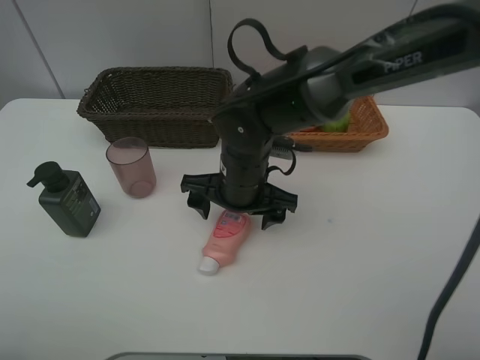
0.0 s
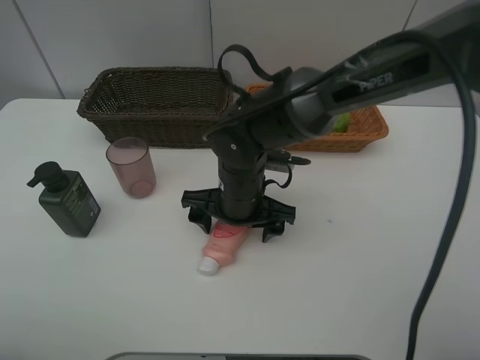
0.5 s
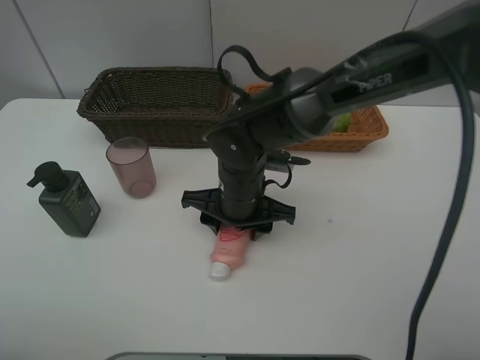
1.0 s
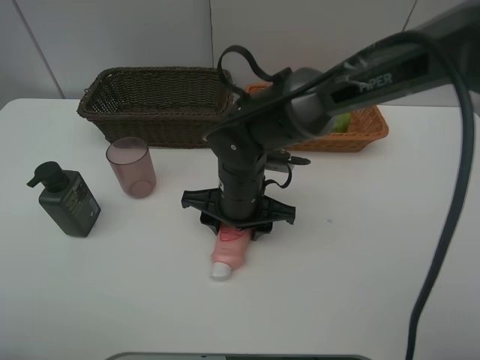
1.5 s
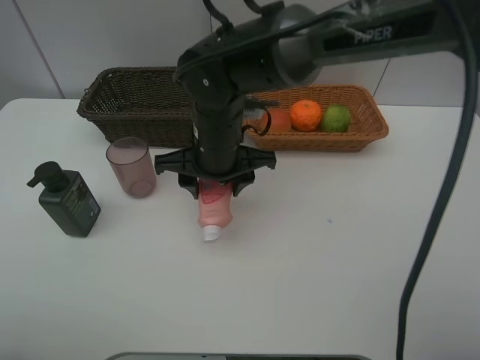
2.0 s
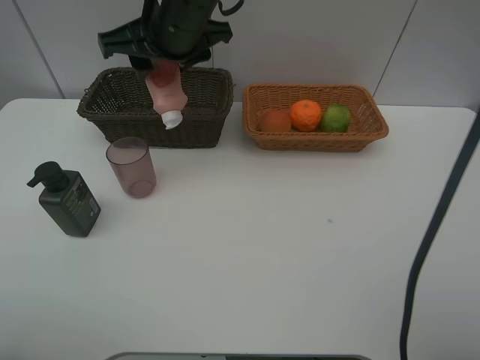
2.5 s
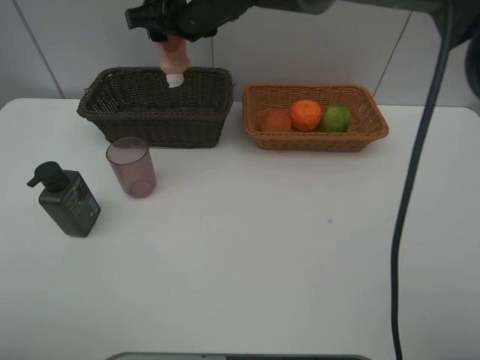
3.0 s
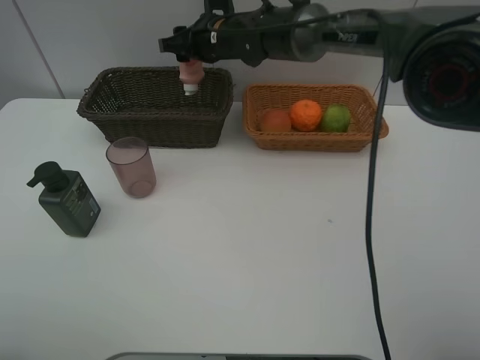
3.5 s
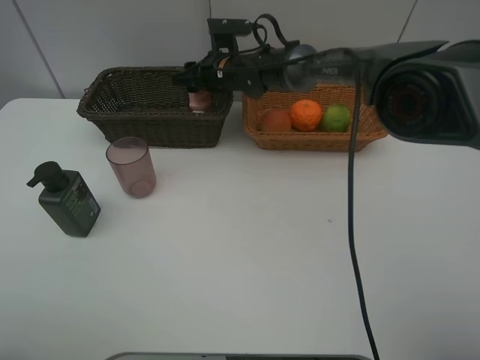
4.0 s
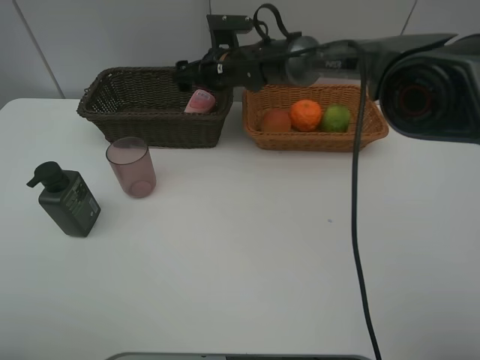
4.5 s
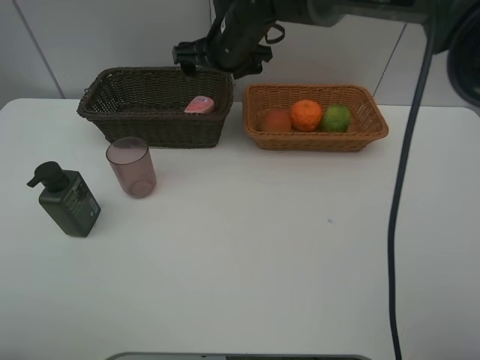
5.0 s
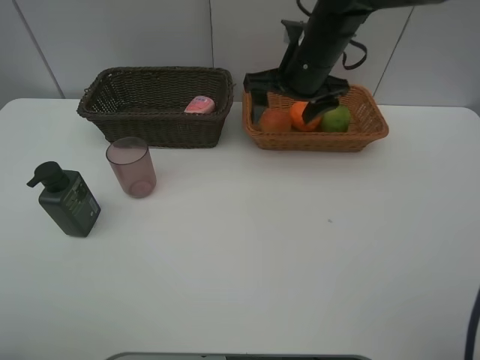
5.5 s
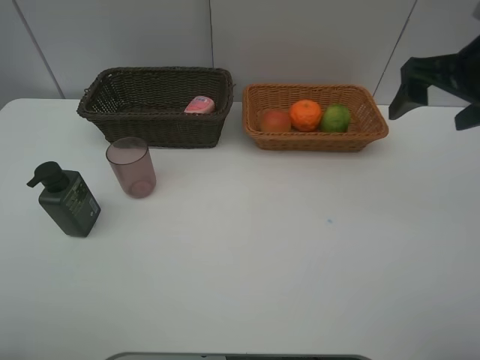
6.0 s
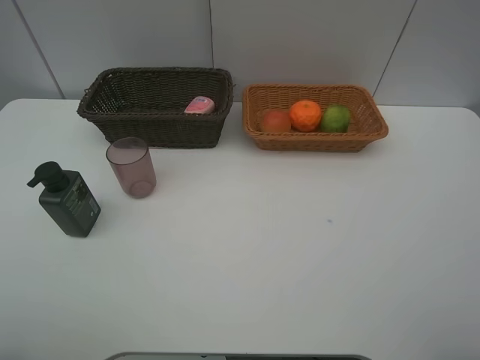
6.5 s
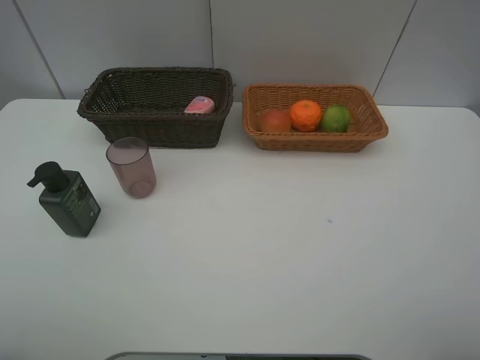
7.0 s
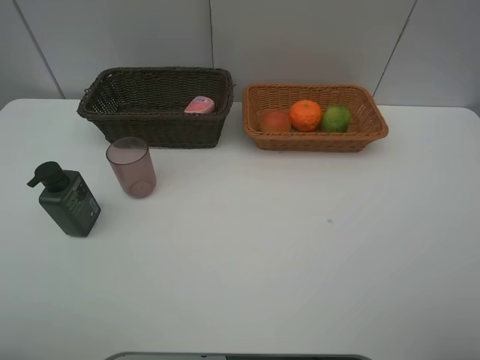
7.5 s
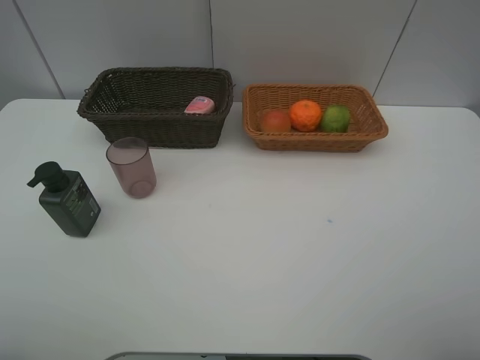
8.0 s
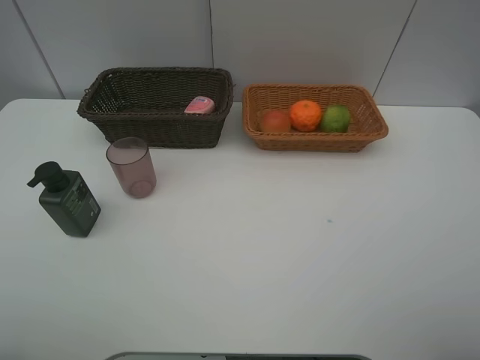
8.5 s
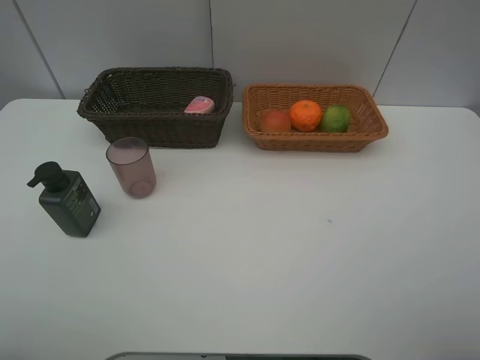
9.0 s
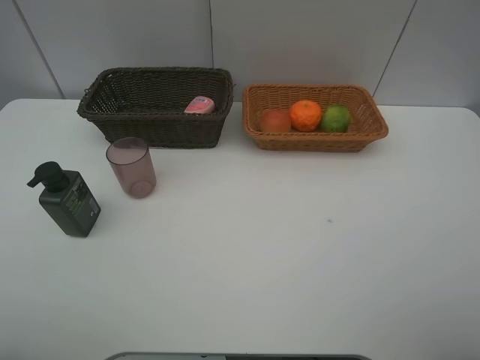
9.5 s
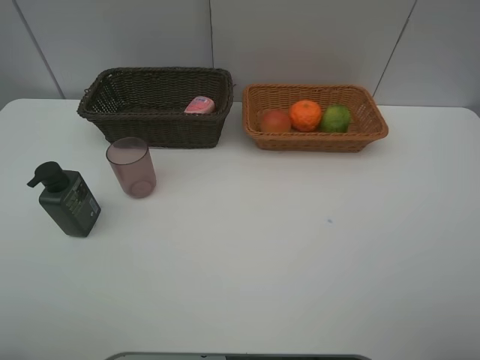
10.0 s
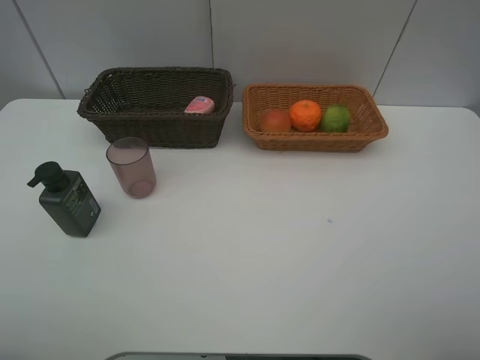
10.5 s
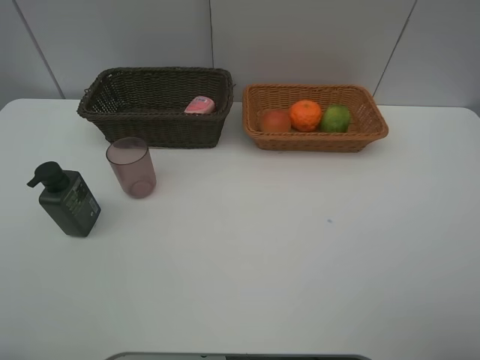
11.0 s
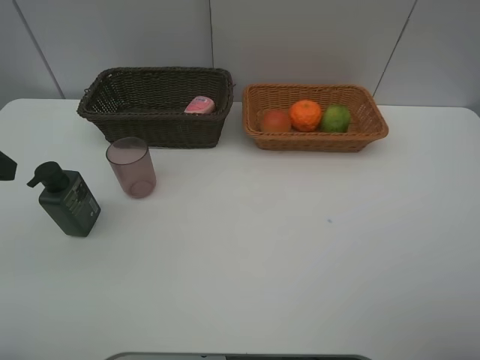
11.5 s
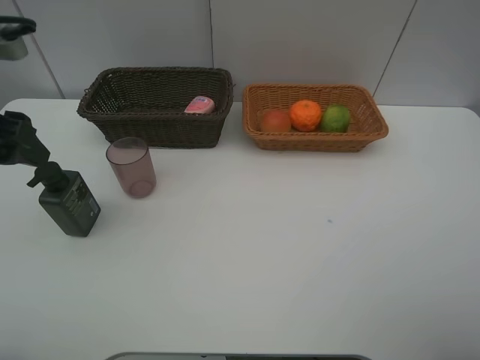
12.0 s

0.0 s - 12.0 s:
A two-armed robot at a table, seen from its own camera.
Task of the whole recording: place multiple objects separately in different baskets.
0.0 s - 2.0 s: The right gripper moves upward, roughly 5 cm, and closes up.
2.0 s - 4.0 s: The right gripper shifts some 20 cm forward.
4.0 s - 6.0 s: The right gripper moves to the right, backward and upward, roughly 40 cm, and opens up.
6.0 s - 8.0 s: The right gripper travels backward by roughly 25 cm.
8.0 s - 10.0 s: The two grippers keep their place.
10.0 s - 12.0 s: The left gripper shifts roughly 20 cm forward.

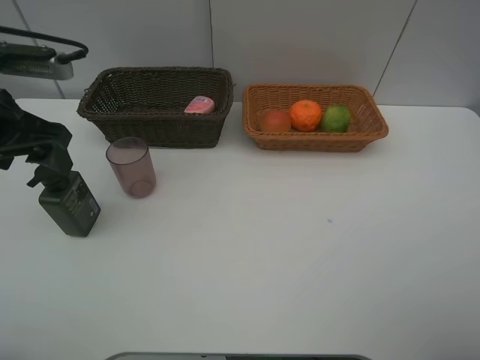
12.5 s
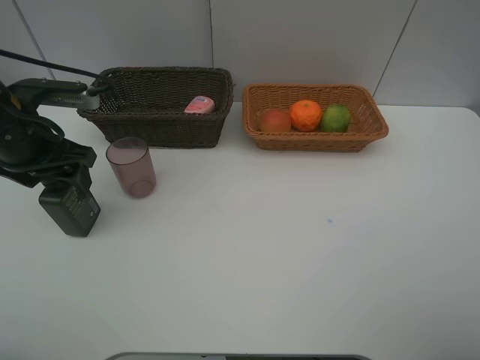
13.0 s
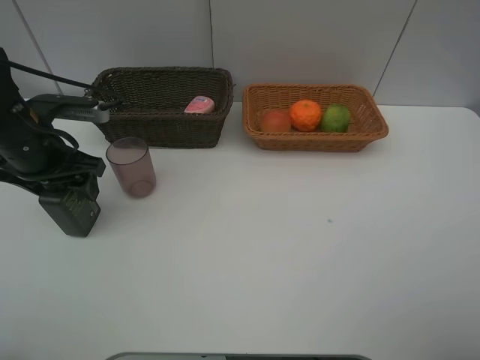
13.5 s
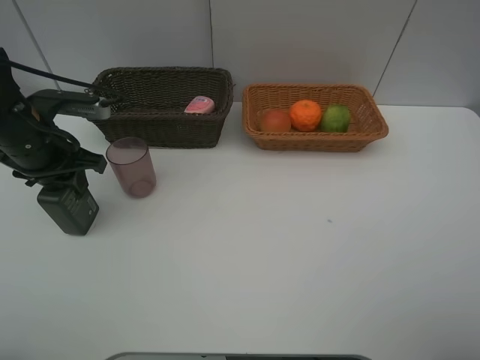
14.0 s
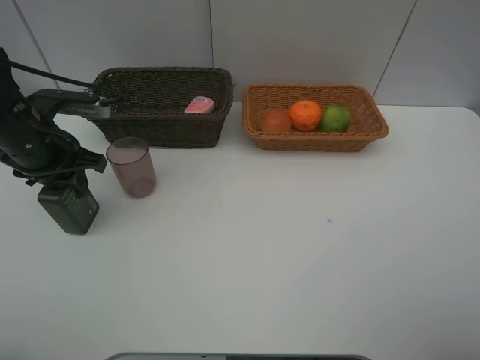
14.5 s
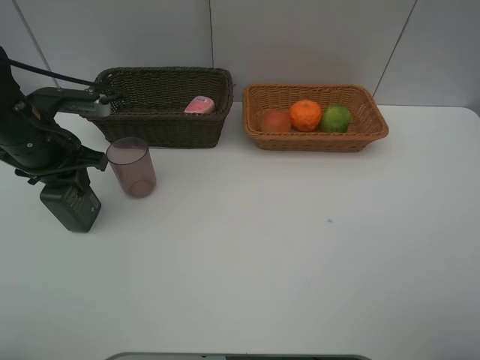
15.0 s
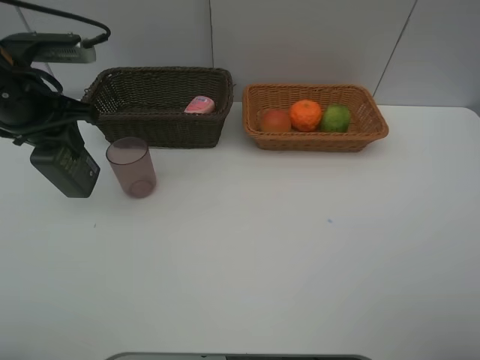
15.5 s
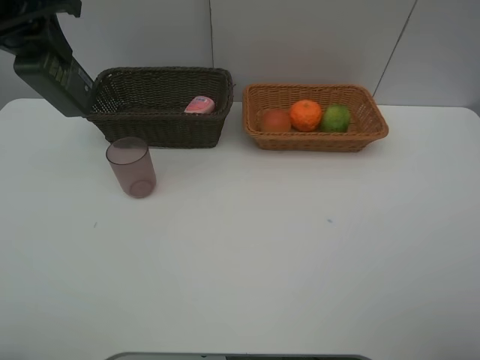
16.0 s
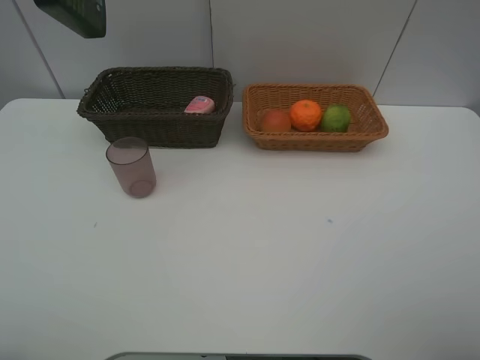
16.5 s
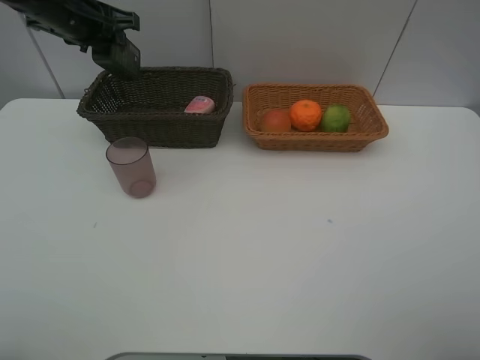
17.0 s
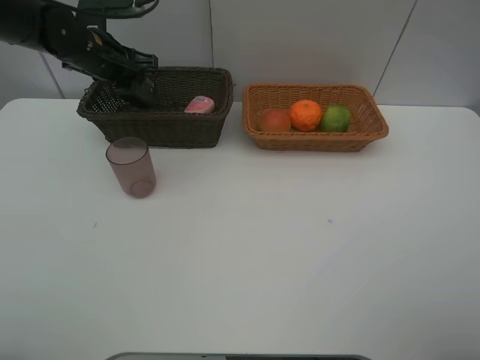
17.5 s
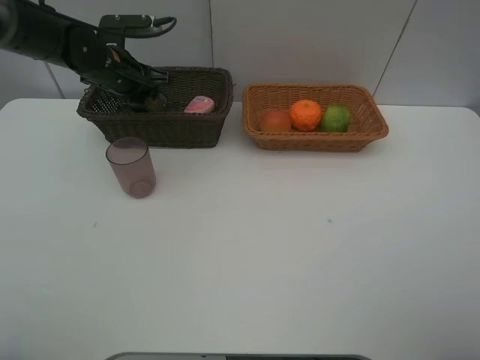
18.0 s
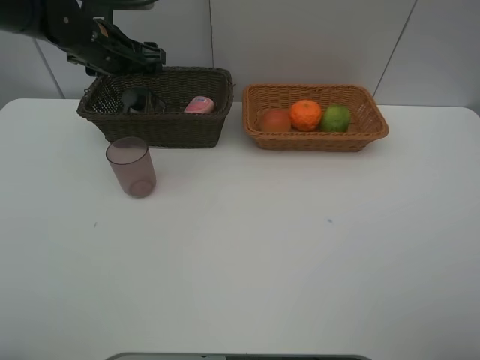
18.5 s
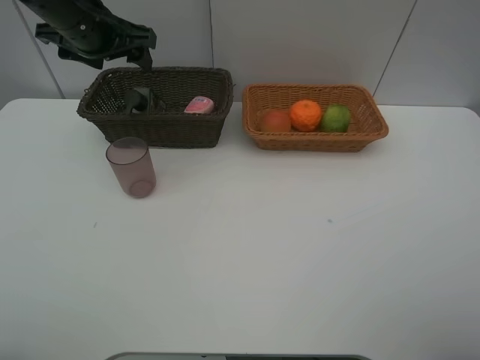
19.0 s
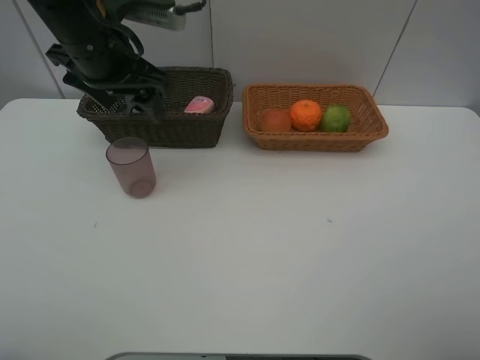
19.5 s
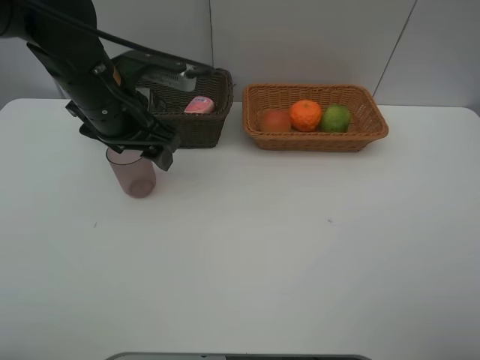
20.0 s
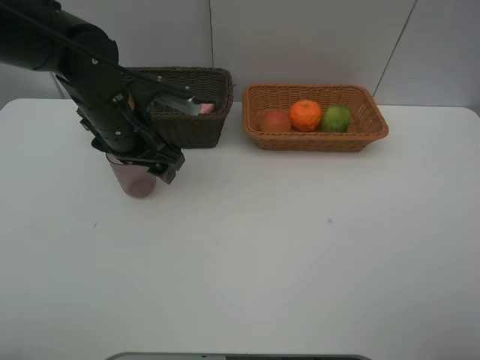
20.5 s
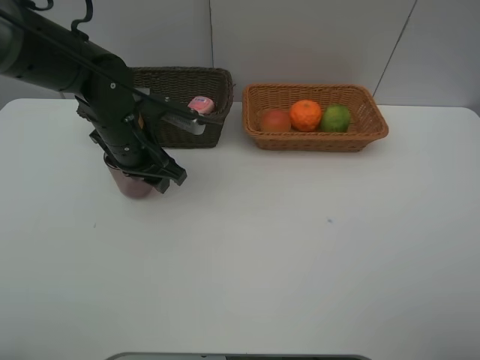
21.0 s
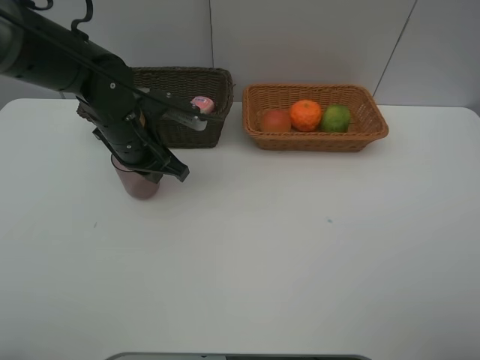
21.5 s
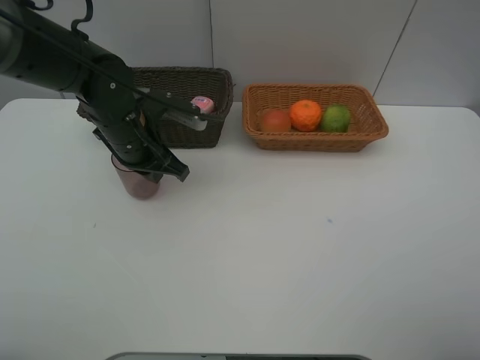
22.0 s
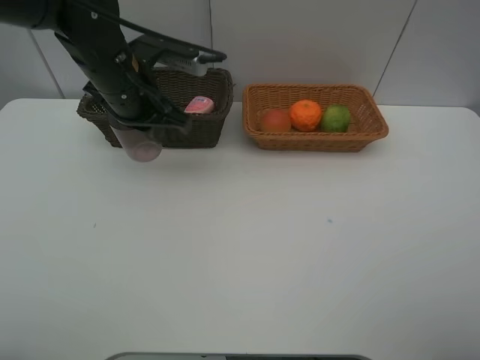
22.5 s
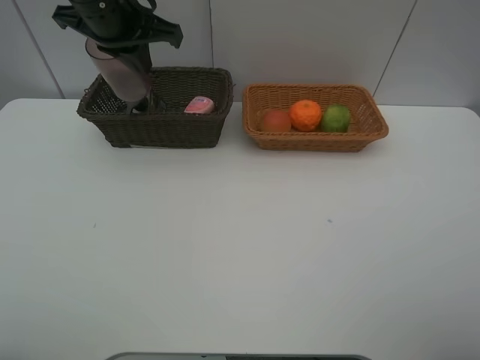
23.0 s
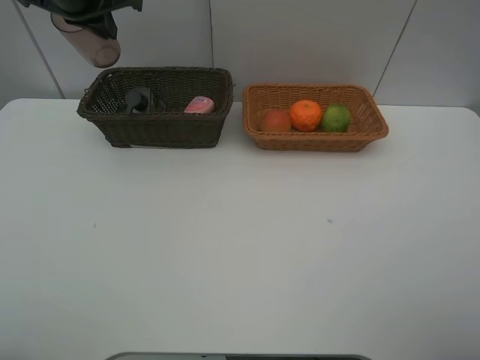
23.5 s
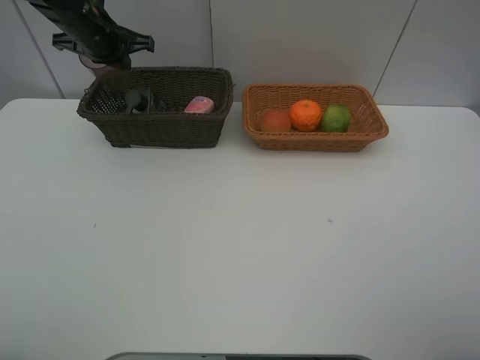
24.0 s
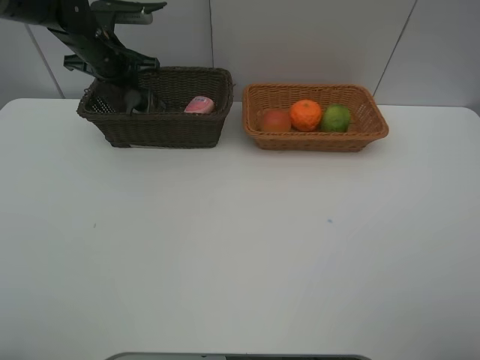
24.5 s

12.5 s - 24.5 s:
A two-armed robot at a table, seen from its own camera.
Task of the whole recording: place multiple objects separately in different baskets.
12.5 s - 14.5 s: The left gripper moves downward, roughly 5 cm, and closes its fingers.
14.5 s - 16.5 s: The left gripper travels upward by approximately 20 cm.
16.5 s - 18.5 s: The left gripper shifts approximately 15 cm downward and forward, and opens.
18.5 s - 20.5 s: The left gripper moves backward and to the right, roughly 15 cm.
20.5 s - 22.5 s: The left gripper is displaced upward by about 5 cm, and closes up.
22.5 s - 24.5 s: The left gripper is displaced forward and to the left by roughly 15 cm.

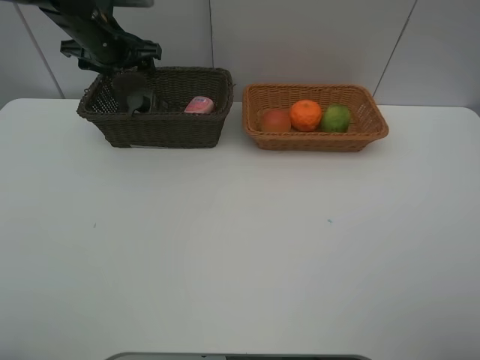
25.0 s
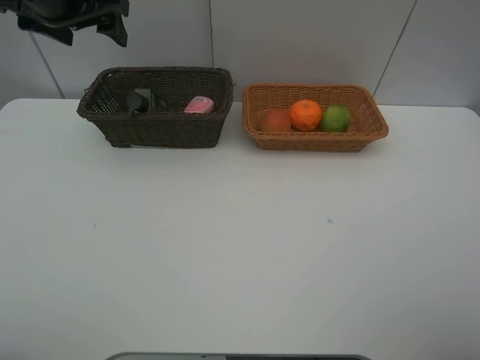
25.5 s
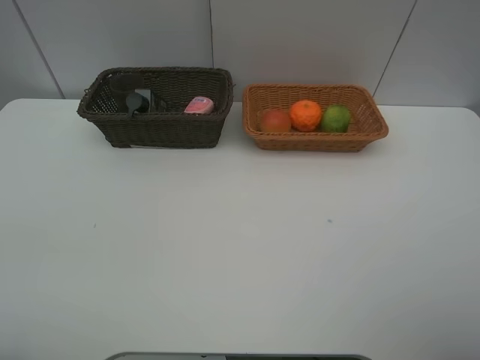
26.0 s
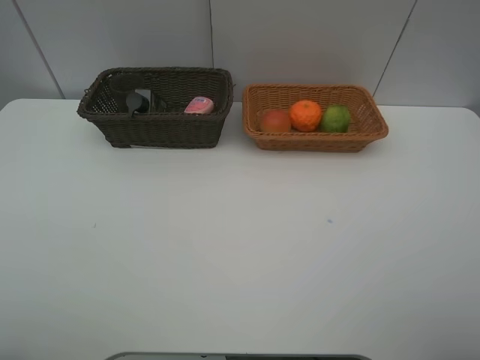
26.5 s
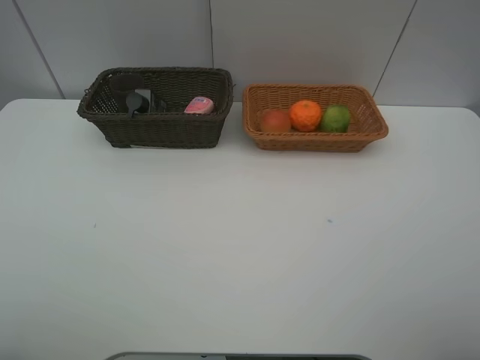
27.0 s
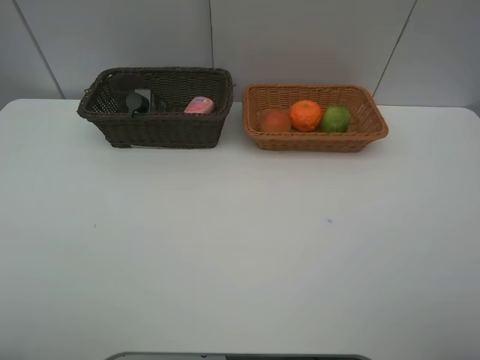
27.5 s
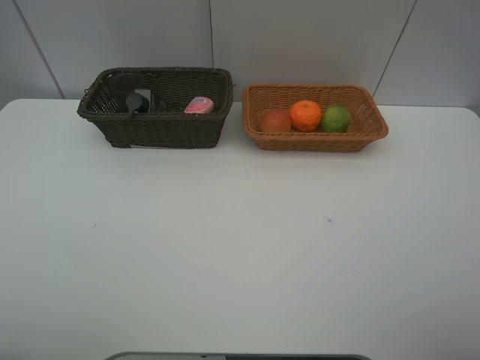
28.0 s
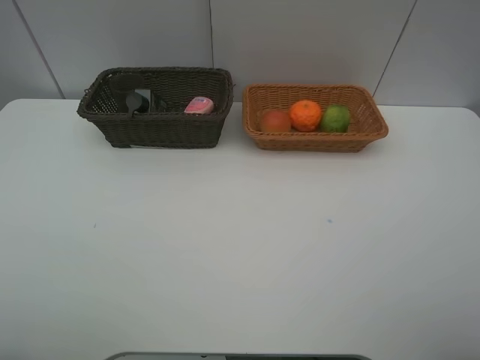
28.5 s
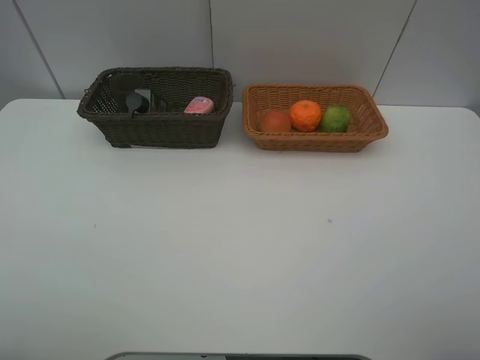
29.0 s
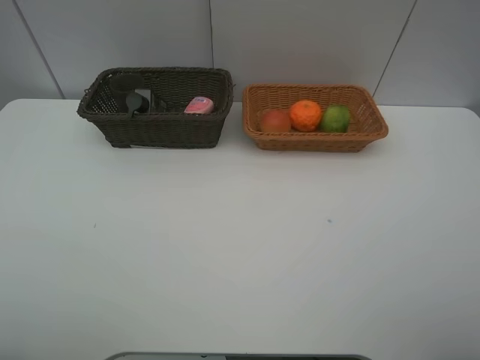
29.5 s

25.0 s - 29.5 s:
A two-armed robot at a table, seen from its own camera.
Task of the whole recording: place multiple objects separately in different baskets.
25.0 s - 27.0 s: The left gripper heads backward, covering about 40 cm.
